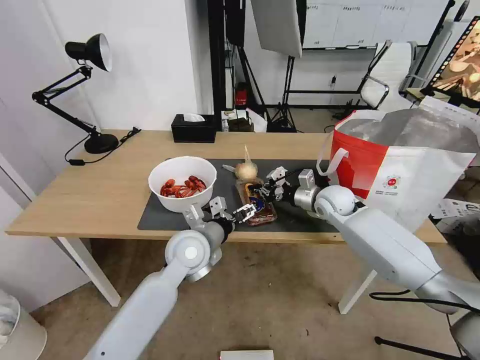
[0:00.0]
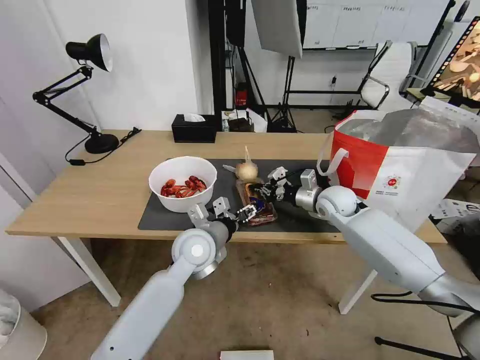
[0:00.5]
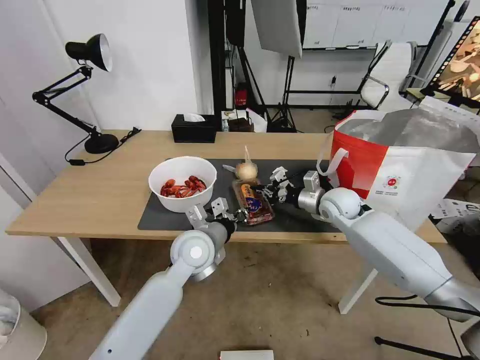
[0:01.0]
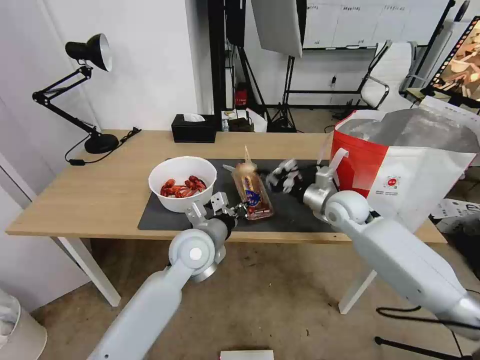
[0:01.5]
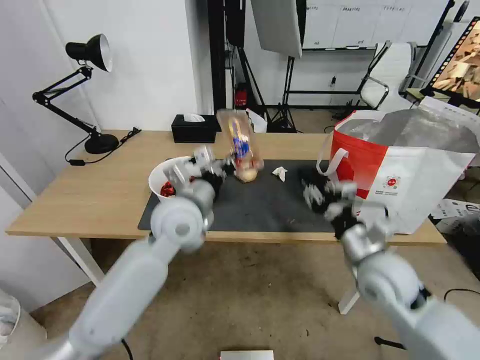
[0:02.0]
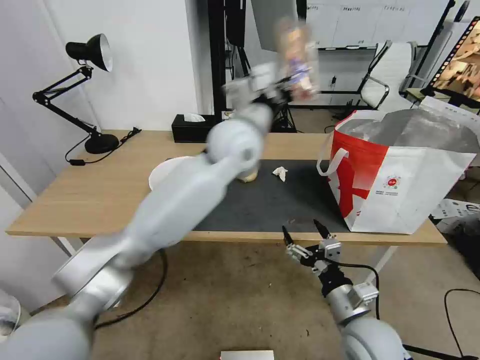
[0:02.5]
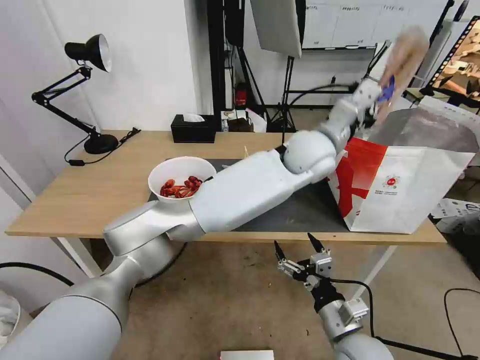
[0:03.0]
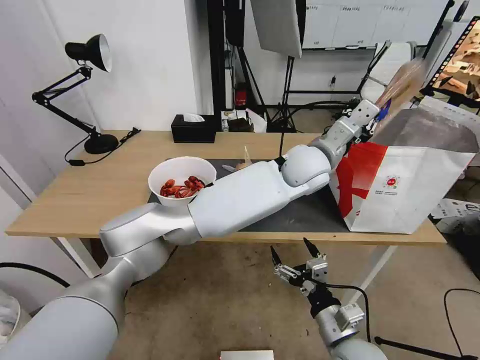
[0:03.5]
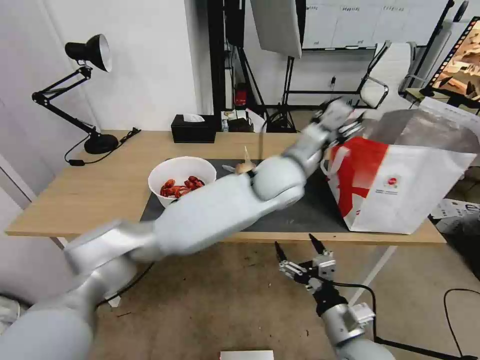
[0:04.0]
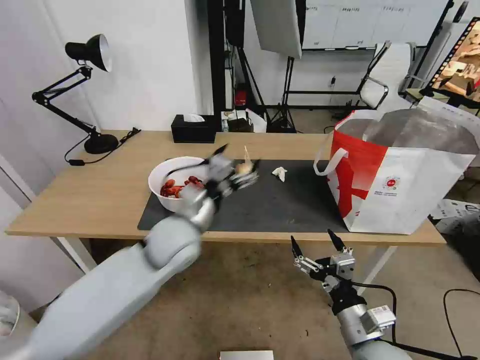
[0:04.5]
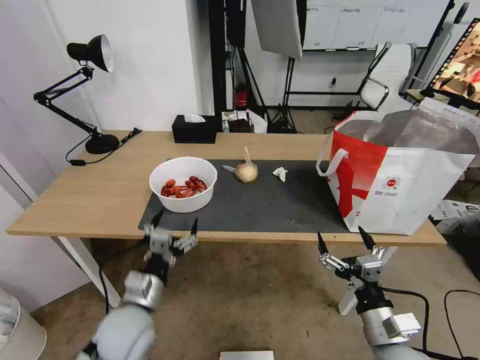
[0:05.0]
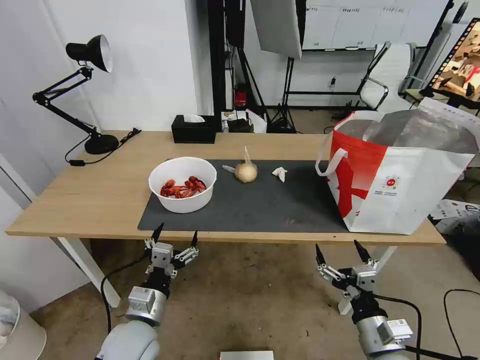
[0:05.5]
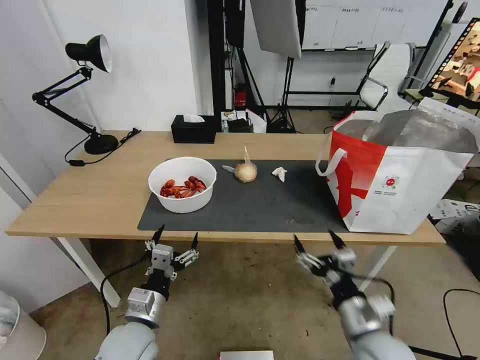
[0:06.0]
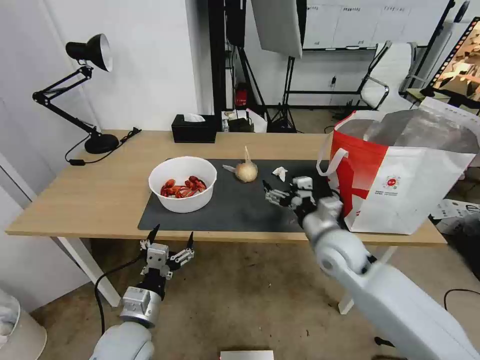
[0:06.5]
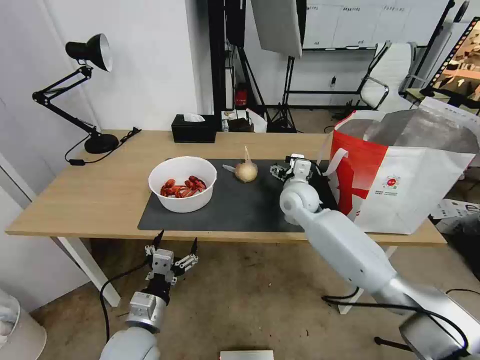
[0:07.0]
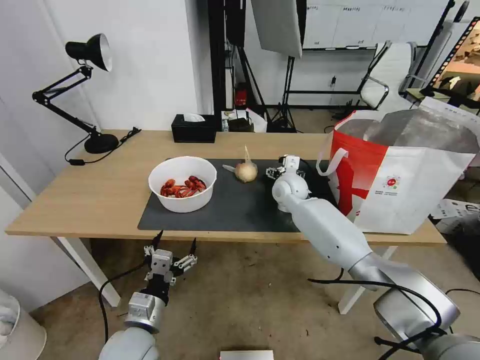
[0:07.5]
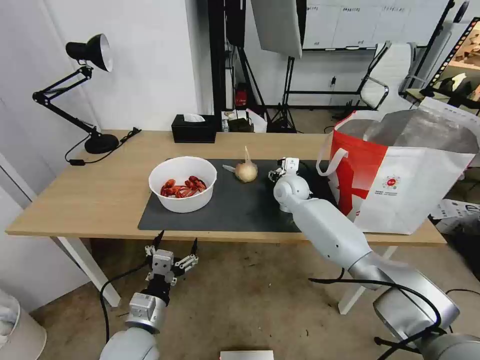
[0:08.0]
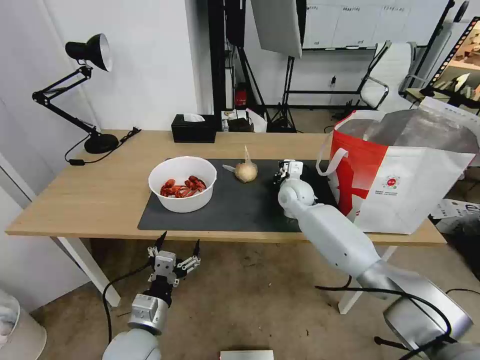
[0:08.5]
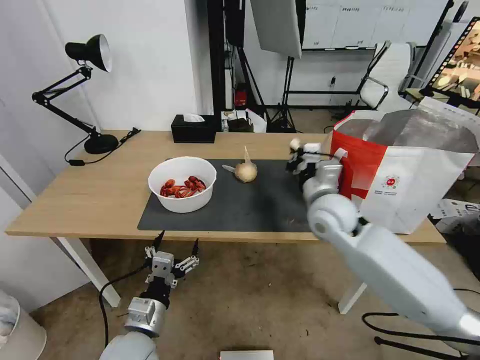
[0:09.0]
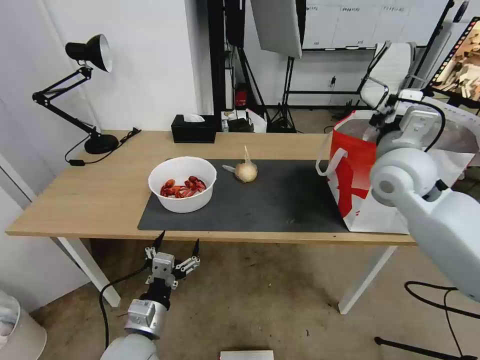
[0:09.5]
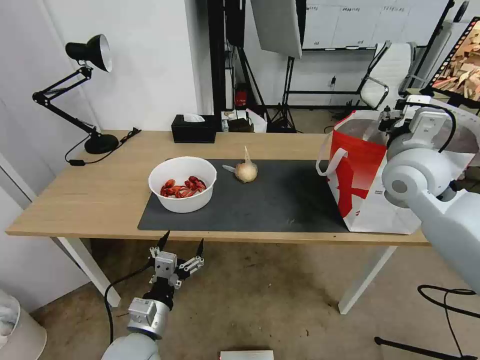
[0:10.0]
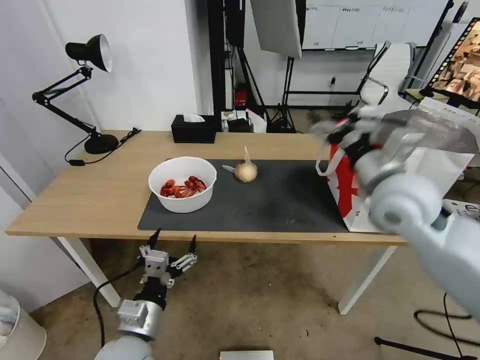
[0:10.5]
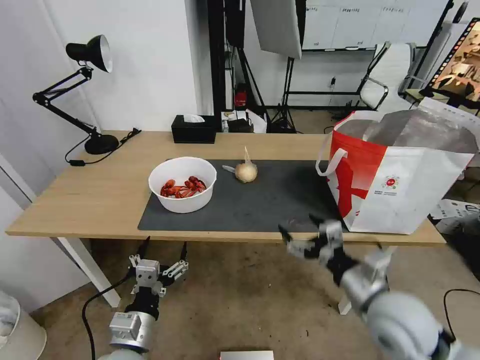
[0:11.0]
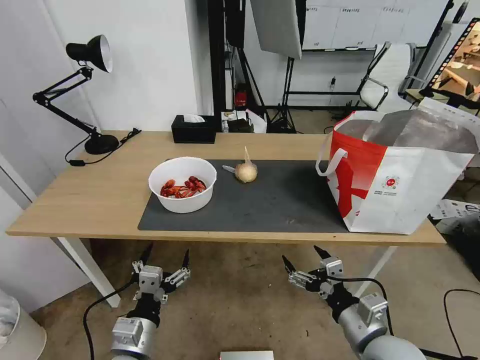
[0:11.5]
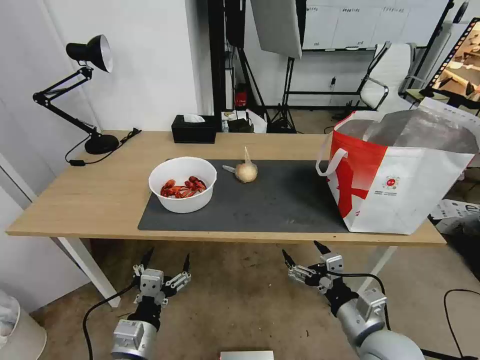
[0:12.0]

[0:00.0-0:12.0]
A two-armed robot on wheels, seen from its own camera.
Task of the whole recording: Pick up the trash from the table and place it into the takeout bag.
0:00.0 to 0:02.0: The right gripper heads backward, covering some 20 cm, and opens its fingers. The left gripper is displaced upward by some 10 cm, and closes up.
0:02.0 to 0:04.0: The right gripper heads backward, downward and to the left, covering roughly 15 cm, and opens; the left gripper goes approximately 20 cm to the right, and opens its fingers.
0:04.0 to 0:06.0: The left gripper heads to the left, backward and downward, covering about 40 cm.
0:06.0 to 0:08.0: The right gripper is displaced forward by about 40 cm.
0:08.0 to 0:10.0: The right gripper is displaced upward, to the right and backward by about 30 cm, and closes and opens again.
0:10.0 to 0:12.0: The right gripper shifts about 35 cm backward and downward, and opens up.

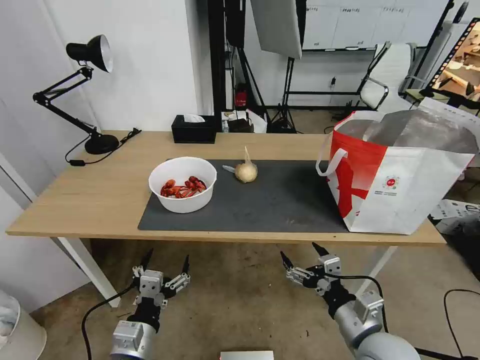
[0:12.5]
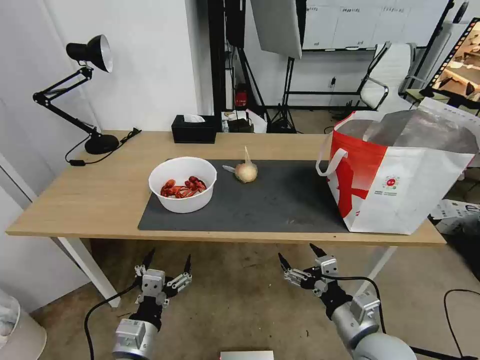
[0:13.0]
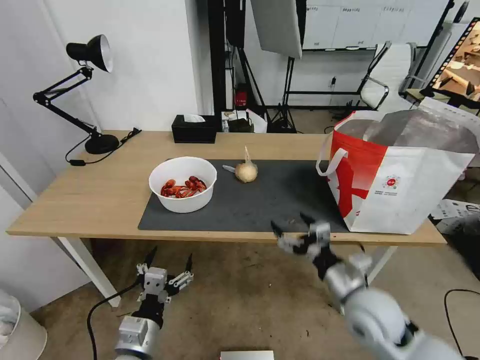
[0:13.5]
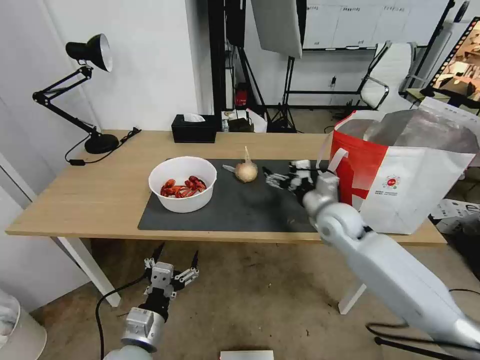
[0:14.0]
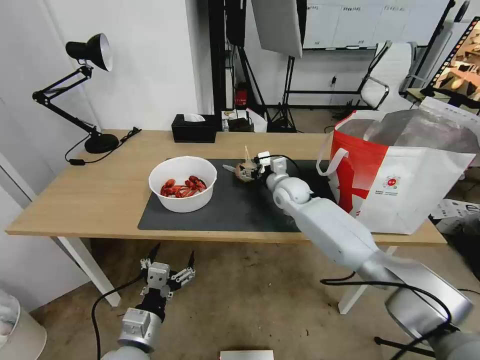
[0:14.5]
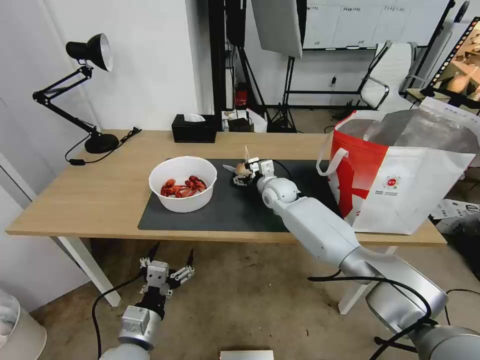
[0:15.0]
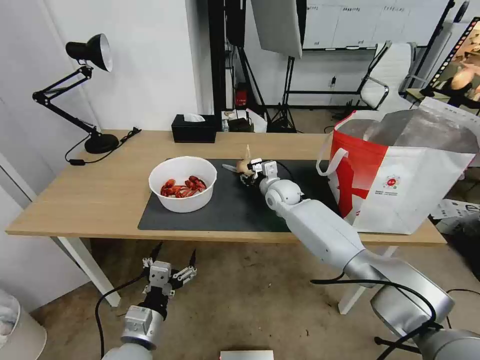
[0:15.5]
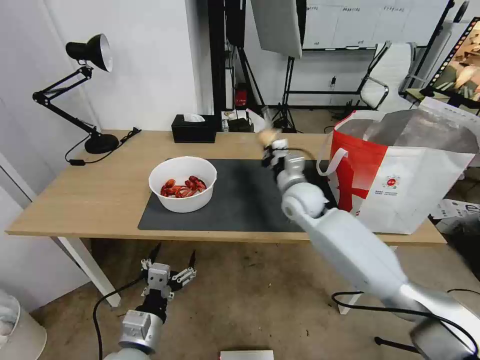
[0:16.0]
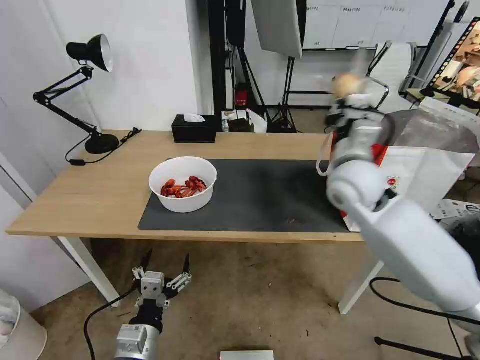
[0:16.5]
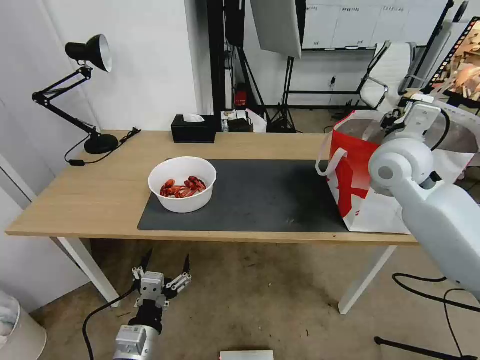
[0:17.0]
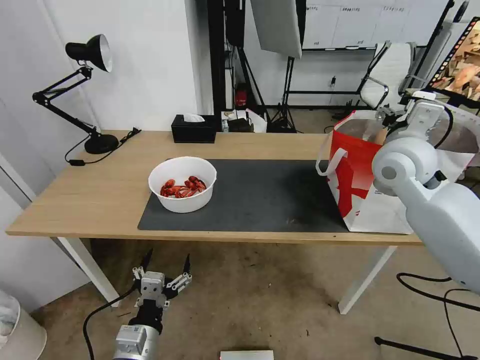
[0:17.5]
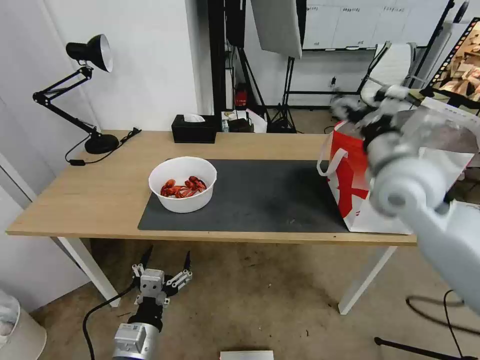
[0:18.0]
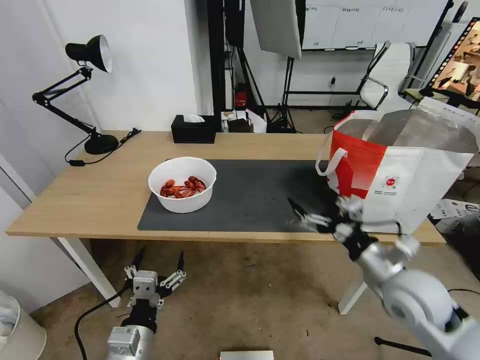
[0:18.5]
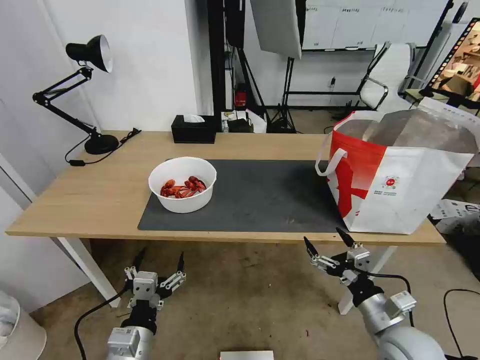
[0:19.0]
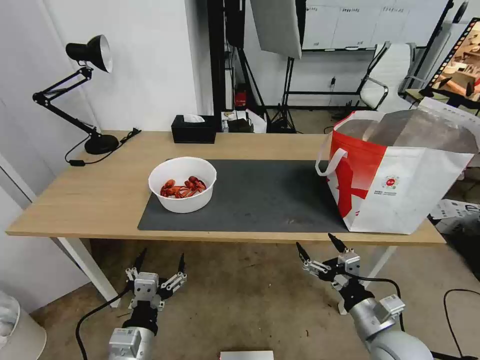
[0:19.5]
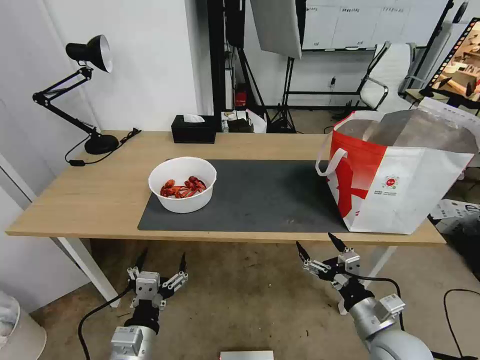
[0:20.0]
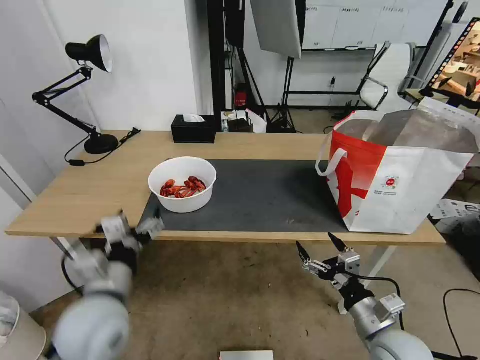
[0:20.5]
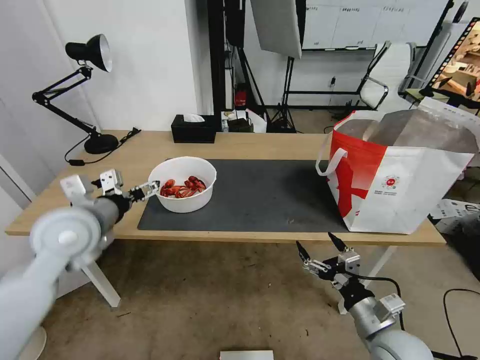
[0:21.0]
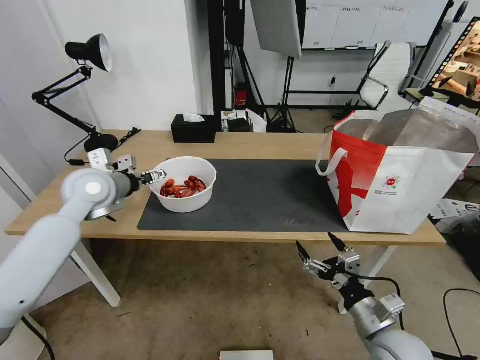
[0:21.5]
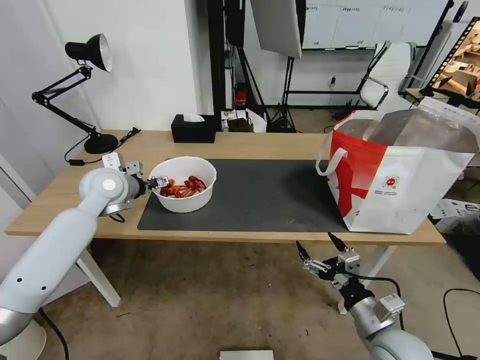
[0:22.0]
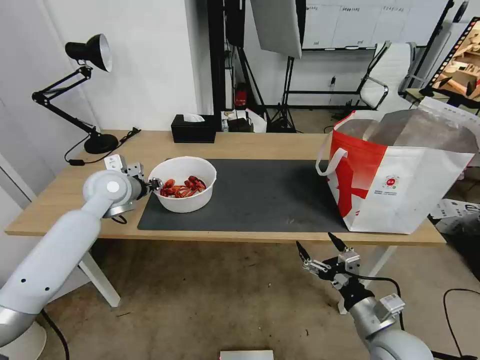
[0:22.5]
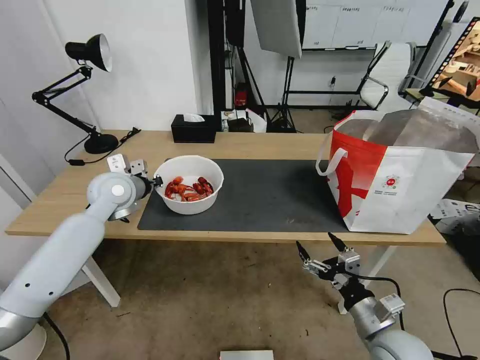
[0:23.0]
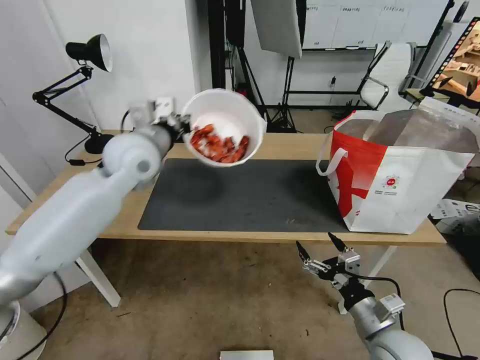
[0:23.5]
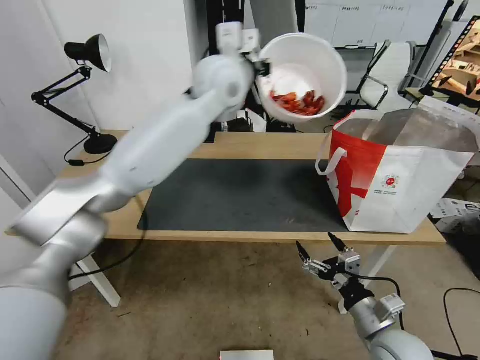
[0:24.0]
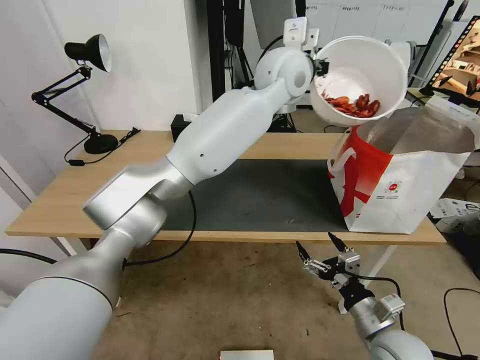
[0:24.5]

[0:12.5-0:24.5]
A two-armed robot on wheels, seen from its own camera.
Task of the whole recording: Pick up the trash from the table and place it into the takeout bag.
0:12.5 to 0:14.5: The right gripper goes approximately 40 cm forward.
0:14.5 to 0:16.5: The right gripper is displaced upward, backward and to the right by roughly 20 cm, and closes.
0:16.5 to 0:18.5: The right gripper goes roughly 25 cm backward, downward and to the right, and opens.
0:18.5 to 0:20.5: The left gripper moves upward and forward, approximately 15 cm; the right gripper moves downward and backward, some 10 cm.
0:20.5 to 0:22.5: The left gripper heads forward, covering roughly 25 cm, and closes its fingers.
0:22.5 to 0:24.5: The left gripper is displaced to the right and upward by some 40 cm, and closes its fingers.

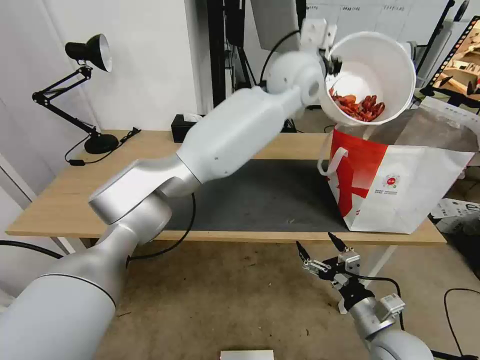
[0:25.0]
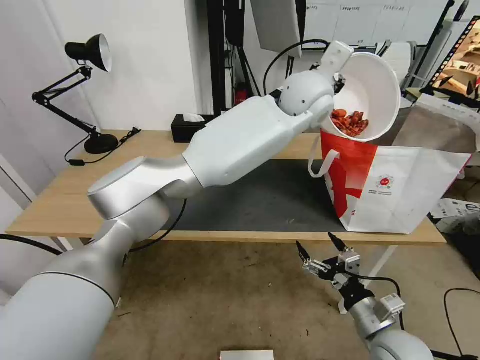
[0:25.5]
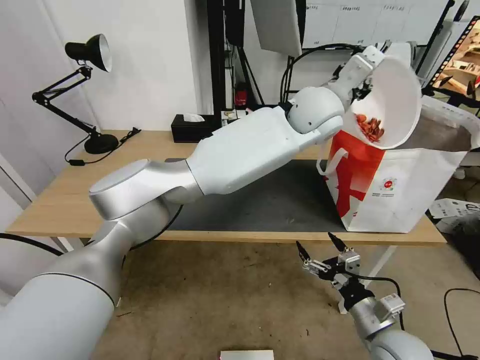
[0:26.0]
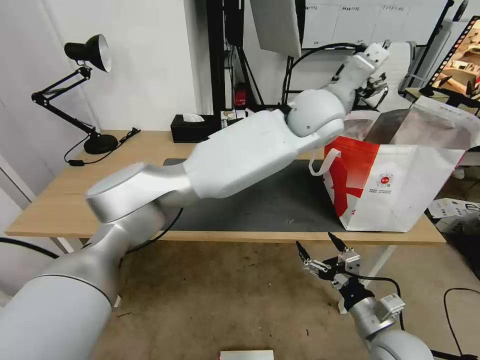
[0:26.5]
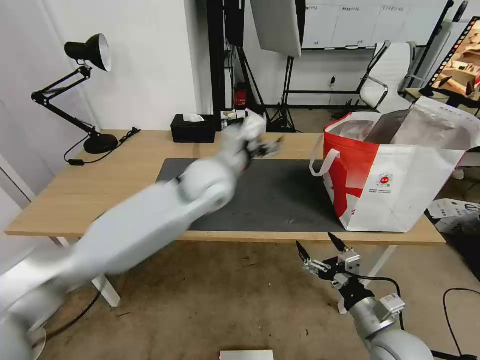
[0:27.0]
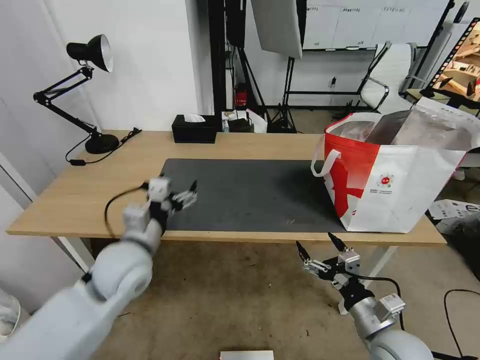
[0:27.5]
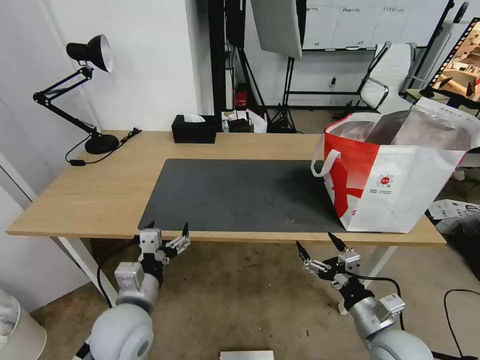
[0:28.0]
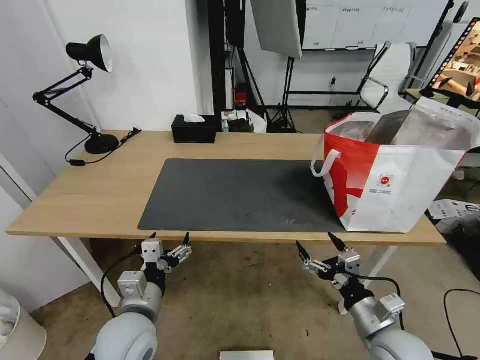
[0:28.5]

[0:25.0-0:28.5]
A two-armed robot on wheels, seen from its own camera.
Task of the whole recording: Pick up the trash from the table and place it into the takeout bag.
0:25.0 to 0:27.0: The left gripper moves to the left, downward and backward, roughly 25 cm, and opens its fingers.
0:27.0 to 0:28.5: The left gripper moves backward, downward and to the left, roughly 35 cm.
